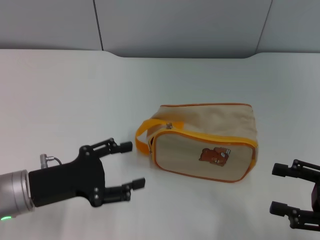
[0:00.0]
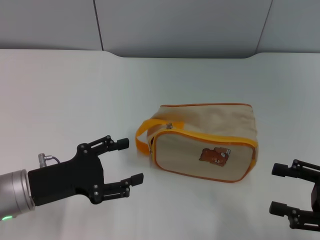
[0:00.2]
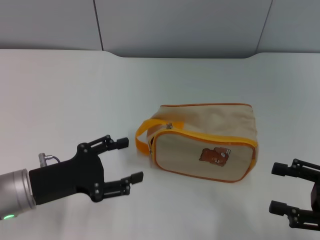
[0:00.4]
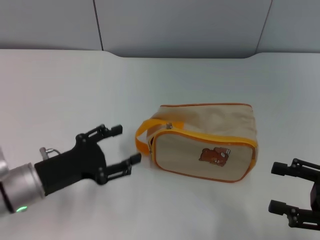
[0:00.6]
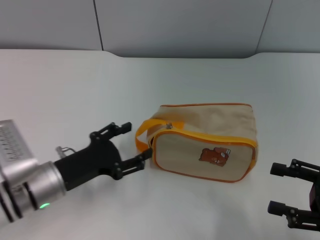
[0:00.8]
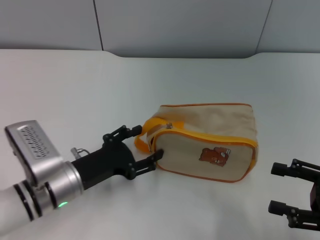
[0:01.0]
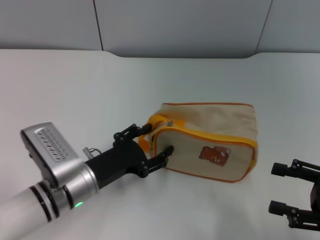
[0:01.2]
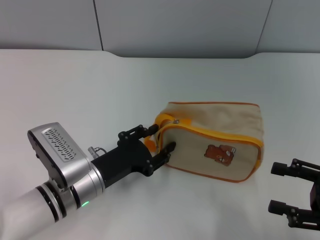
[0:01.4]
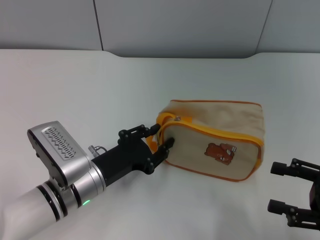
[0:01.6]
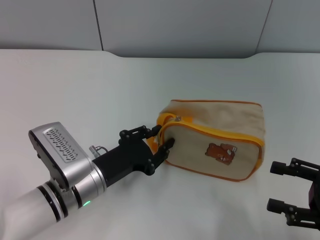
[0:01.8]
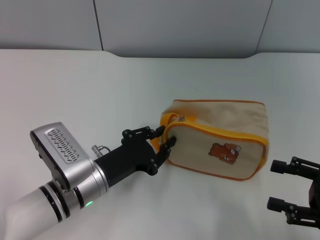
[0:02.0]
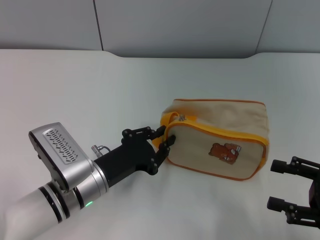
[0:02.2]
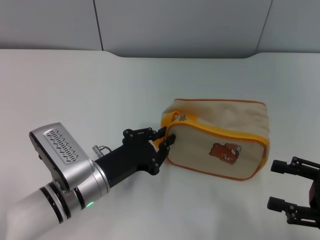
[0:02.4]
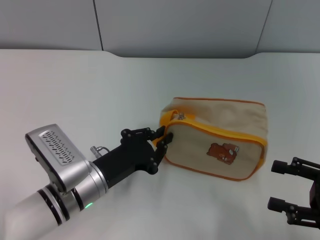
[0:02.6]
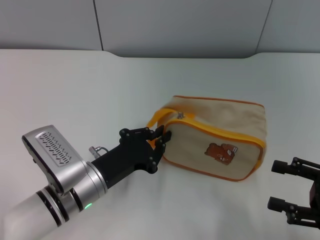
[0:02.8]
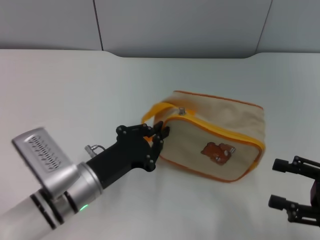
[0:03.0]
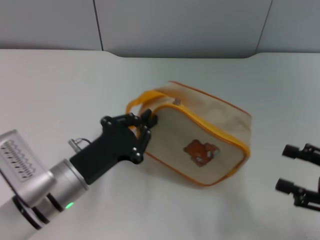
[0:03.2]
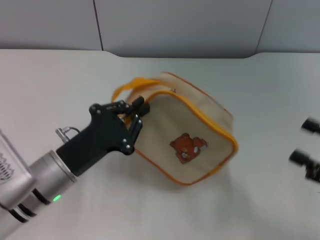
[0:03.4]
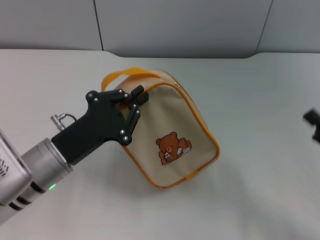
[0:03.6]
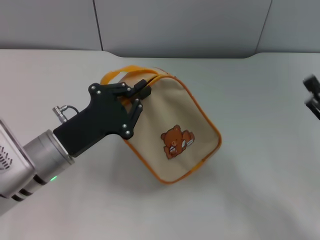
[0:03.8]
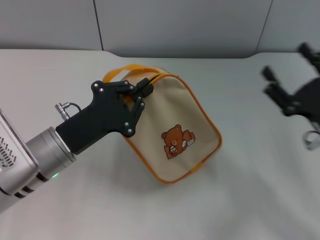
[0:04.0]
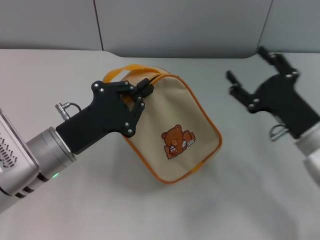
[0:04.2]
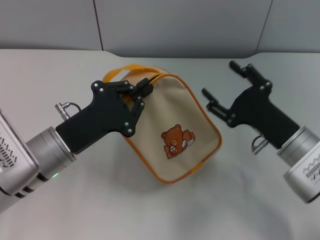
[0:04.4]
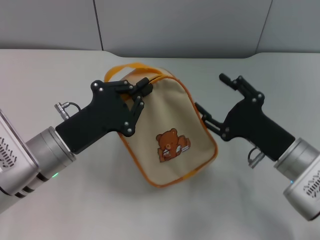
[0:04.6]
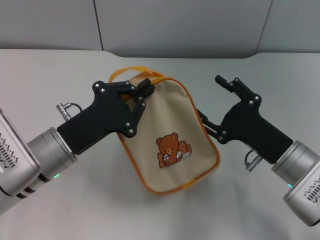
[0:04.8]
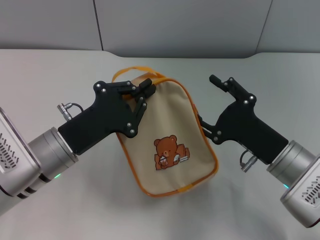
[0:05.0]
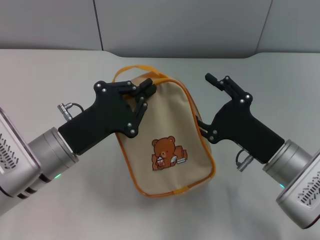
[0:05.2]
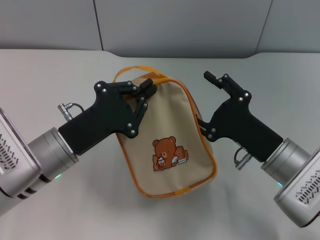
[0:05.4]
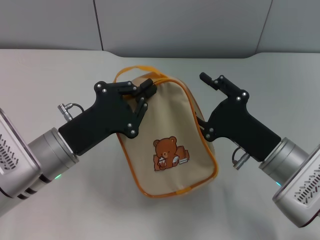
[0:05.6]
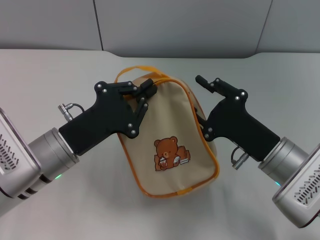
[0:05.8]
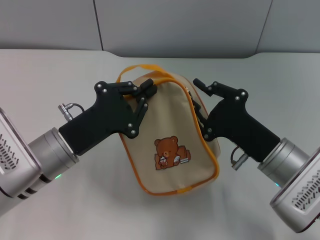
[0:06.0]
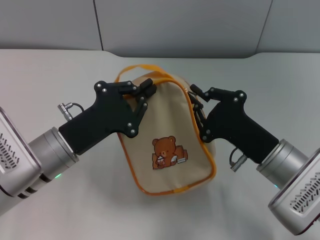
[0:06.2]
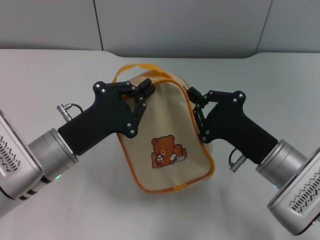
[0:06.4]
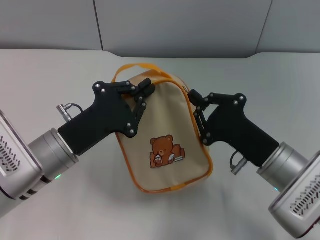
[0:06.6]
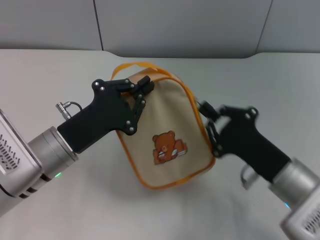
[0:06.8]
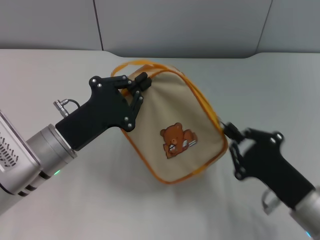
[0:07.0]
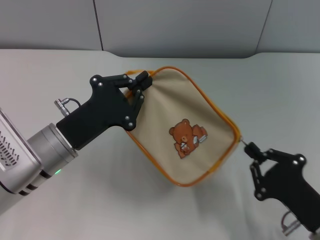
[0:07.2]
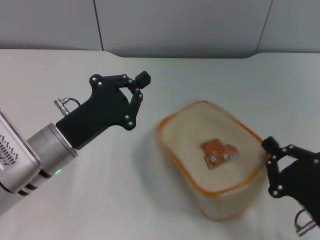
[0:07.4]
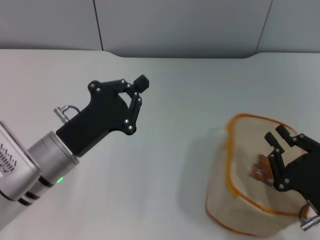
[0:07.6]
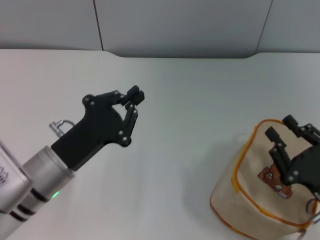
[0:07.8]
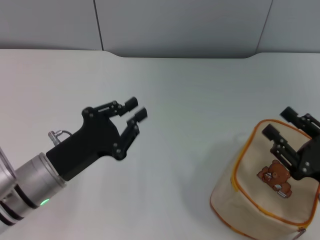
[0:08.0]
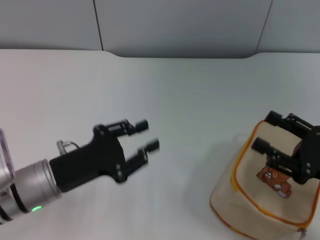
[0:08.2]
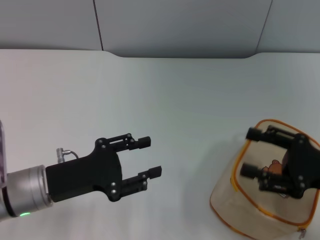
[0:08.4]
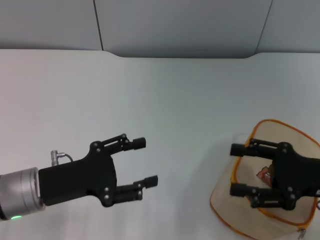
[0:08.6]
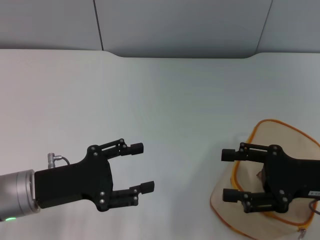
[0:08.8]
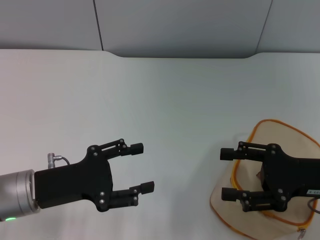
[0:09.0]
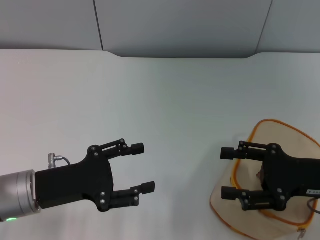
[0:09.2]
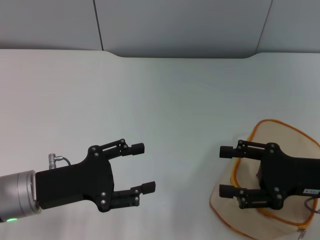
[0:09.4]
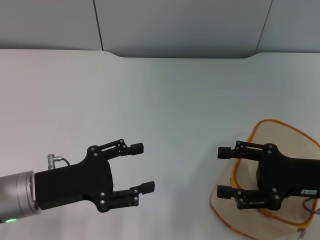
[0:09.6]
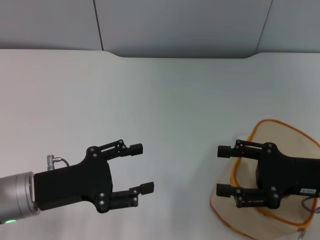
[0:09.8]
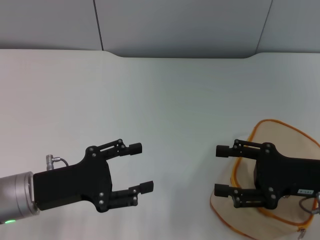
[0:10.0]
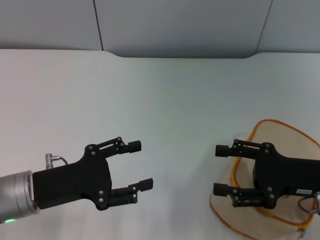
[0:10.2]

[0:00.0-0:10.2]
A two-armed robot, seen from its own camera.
Step, 0:00.0 to 0:03.0: Pick up the bag with left gripper.
Step, 0:03.2 to 0:07.4: Unzip the zipper of bag with right gripper.
0:00.0 to 0:01.4: The left gripper is displaced to the right by about 10 cm.
0:01.4 to 0:03.0: The left gripper closes.
0:03.0 to 0:04.4: The right gripper is displaced to the left and forward by some 15 cm, while the left gripper shifts by roughly 5 cm.
0:05.8 to 0:07.2: The right gripper heads backward and to the right, covering roughly 10 cm, and closes.
0:07.2 to 0:08.8: The right gripper goes roughly 10 cm upward and forward, and opens up, while the left gripper changes place by about 5 cm, and opens its fingers.
0:08.8 to 0:10.2: The two grippers keep their place.
